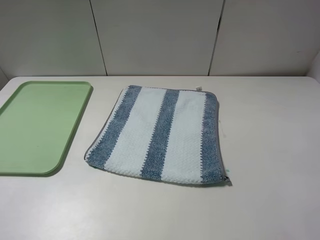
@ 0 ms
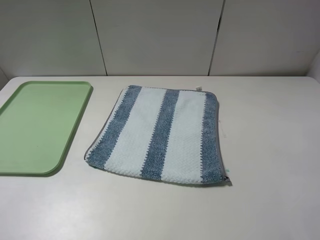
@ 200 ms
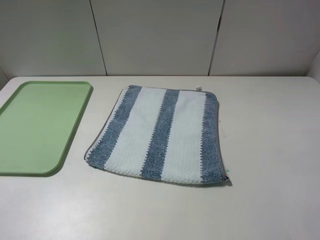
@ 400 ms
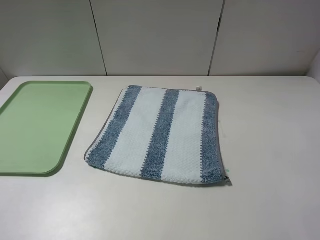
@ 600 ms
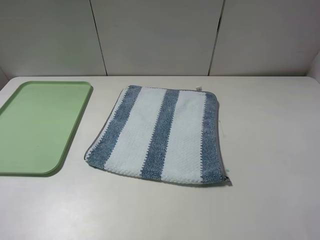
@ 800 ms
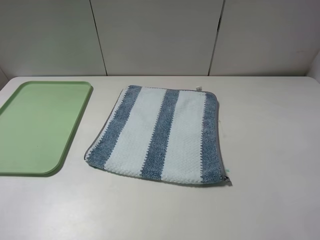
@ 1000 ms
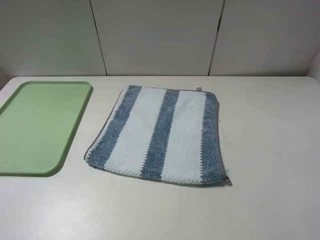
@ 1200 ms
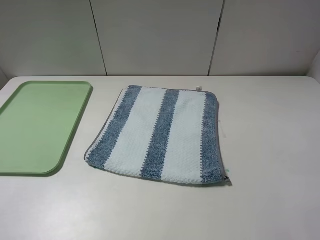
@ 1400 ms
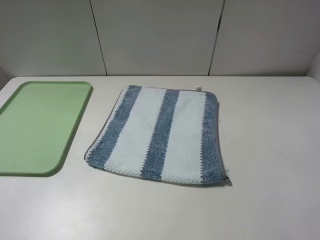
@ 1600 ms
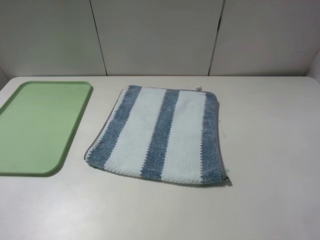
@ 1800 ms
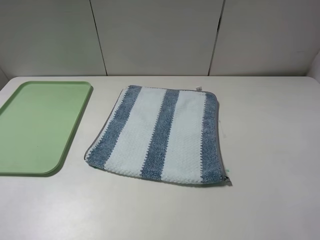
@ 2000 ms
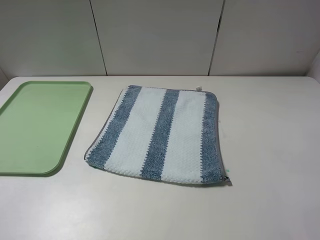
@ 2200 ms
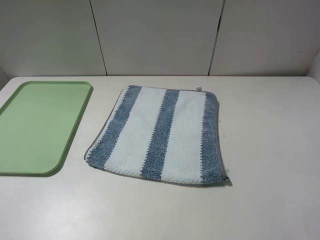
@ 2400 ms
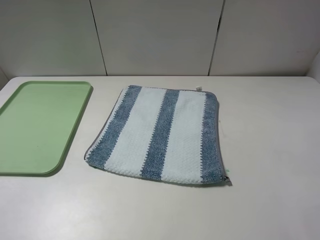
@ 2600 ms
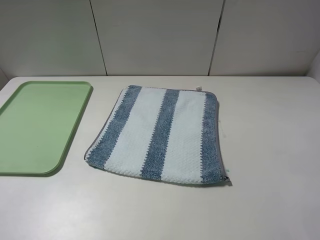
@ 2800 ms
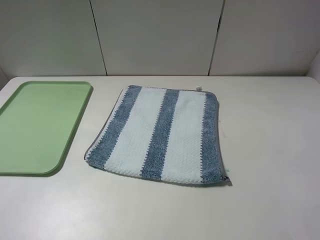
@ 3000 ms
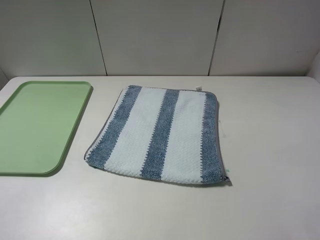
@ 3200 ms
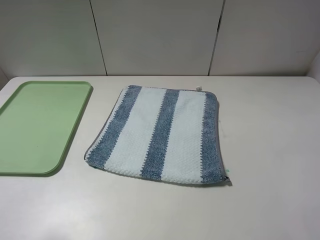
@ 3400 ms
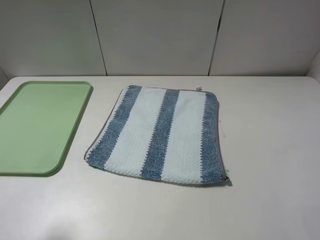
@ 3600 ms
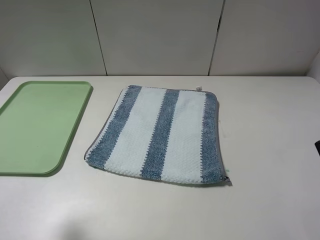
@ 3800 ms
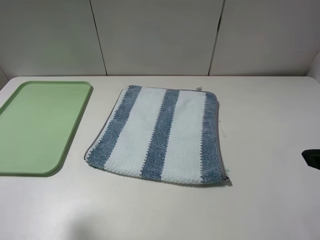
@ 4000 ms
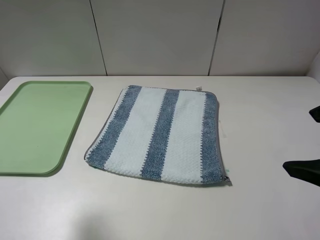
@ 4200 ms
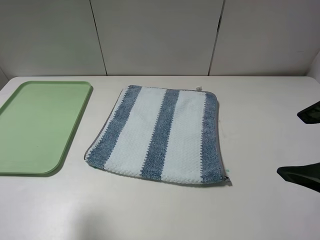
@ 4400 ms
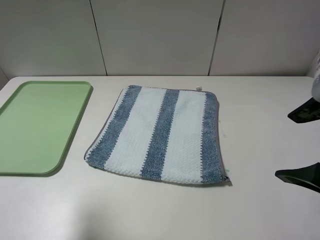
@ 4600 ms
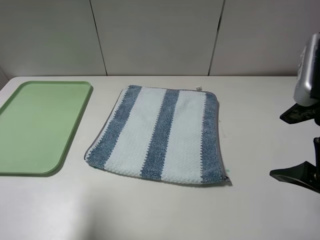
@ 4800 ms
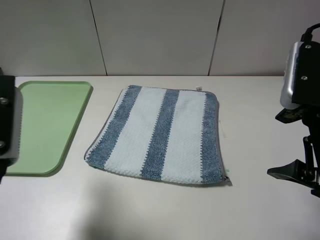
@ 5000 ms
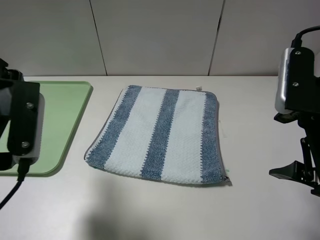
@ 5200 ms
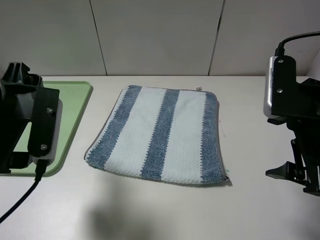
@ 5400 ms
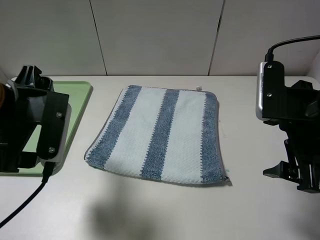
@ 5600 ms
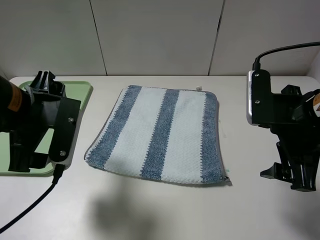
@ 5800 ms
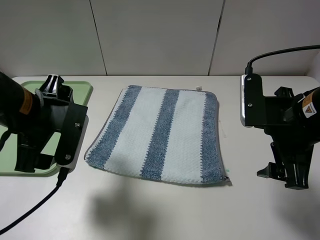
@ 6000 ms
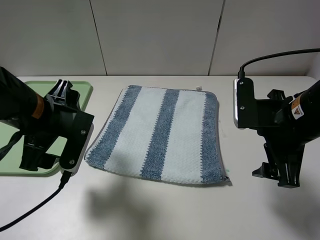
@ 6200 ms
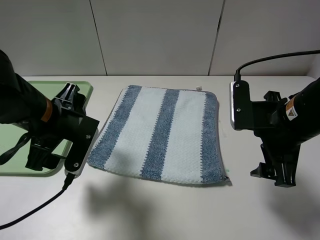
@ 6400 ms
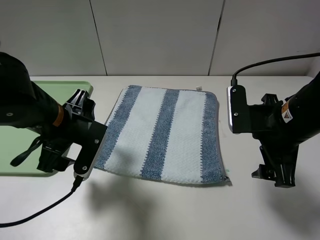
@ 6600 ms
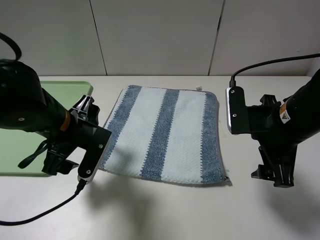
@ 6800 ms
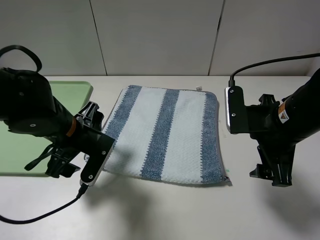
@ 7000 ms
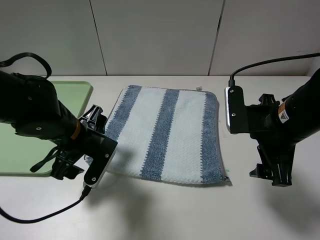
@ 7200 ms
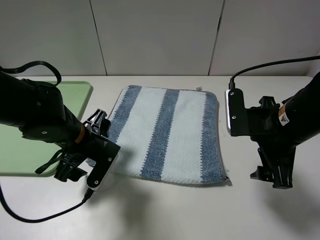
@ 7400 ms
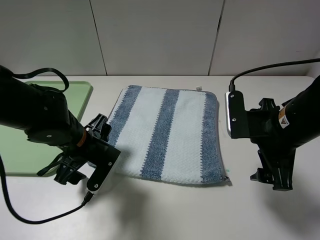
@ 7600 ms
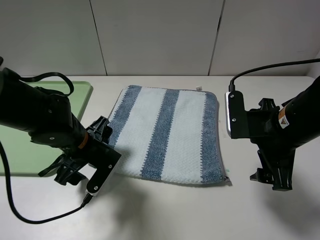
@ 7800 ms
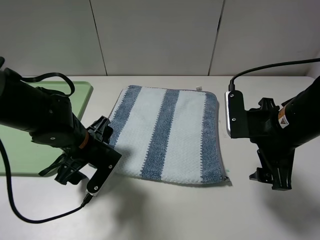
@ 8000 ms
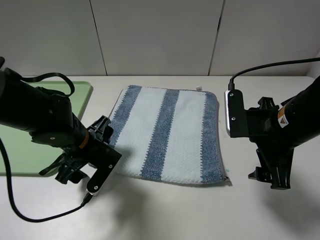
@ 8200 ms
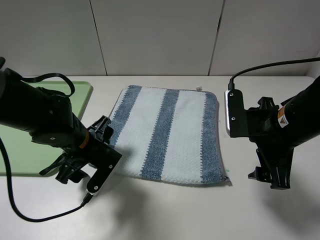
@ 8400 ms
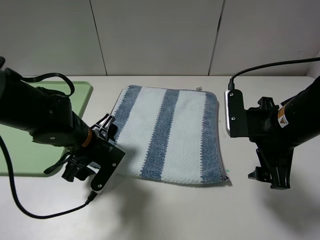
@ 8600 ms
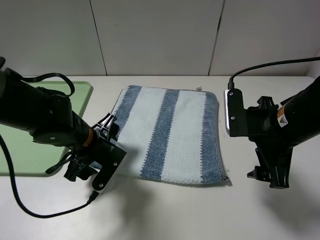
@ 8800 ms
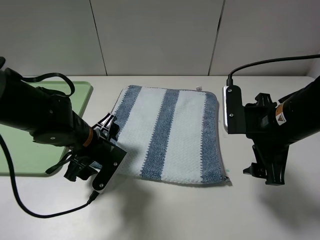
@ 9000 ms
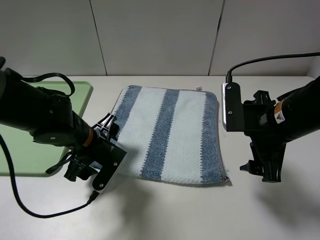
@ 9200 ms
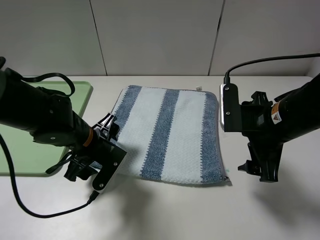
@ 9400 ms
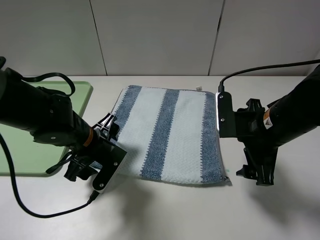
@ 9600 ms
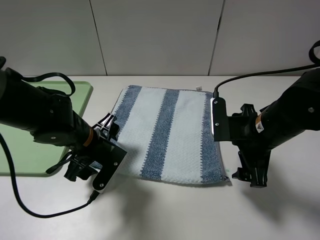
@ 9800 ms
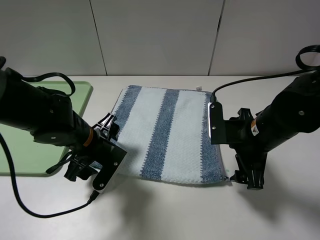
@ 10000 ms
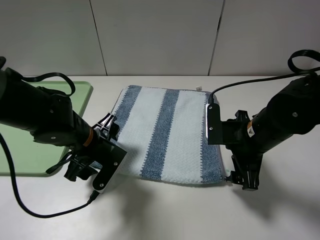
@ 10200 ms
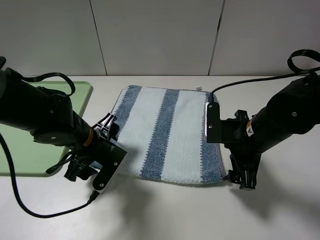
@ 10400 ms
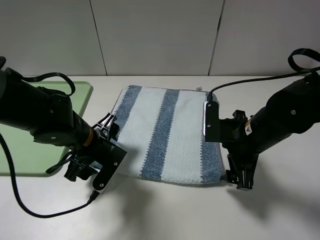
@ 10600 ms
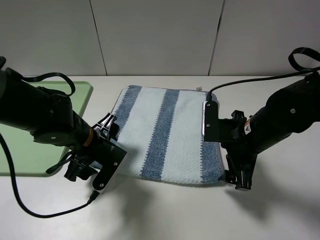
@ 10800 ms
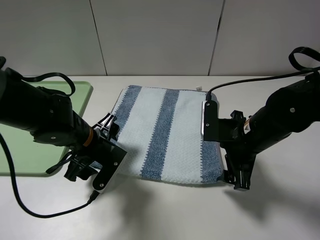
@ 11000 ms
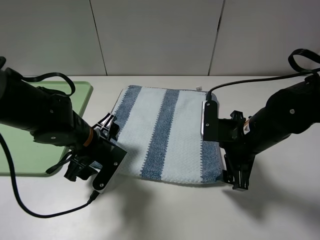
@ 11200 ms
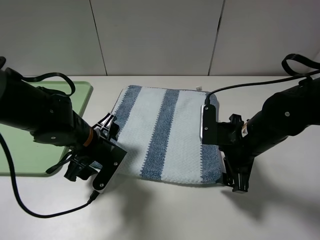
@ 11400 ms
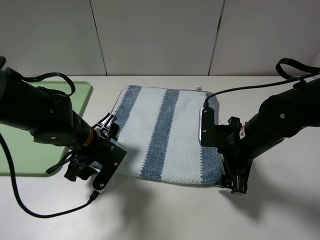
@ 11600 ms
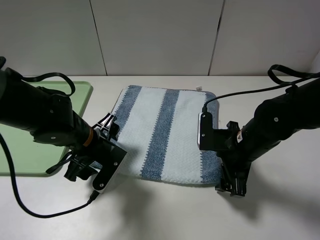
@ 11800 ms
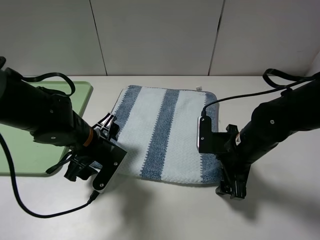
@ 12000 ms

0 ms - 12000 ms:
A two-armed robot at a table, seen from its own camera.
0 ms - 3000 ms: The two grippers keep their place.
3000 ms - 4400 ms: The left gripper heads forward, covering approximately 10 cm; the right gripper is displaced forward and to the left by some 10 cm.
4400 ms - 6000 ms: The right gripper shifts about 10 cm forward and downward. Meanwhile the left gripper is displaced forward, downward and to the right by approximately 15 cm.
6000 ms - 7600 ms: The left gripper travels downward by approximately 10 cm.
7600 ms - 9000 ms: The grippers stay close to where they were, moving slightly.
9000 ms - 10400 ms: The right gripper travels downward by approximately 5 cm.
10400 ms - 12000 ms: The grippers stay close to where they were, moving slightly.

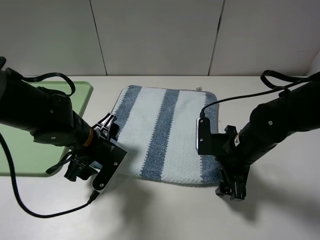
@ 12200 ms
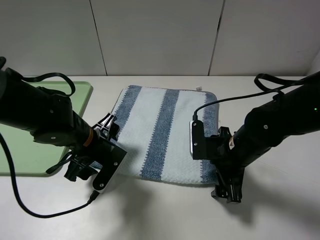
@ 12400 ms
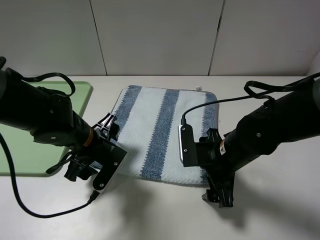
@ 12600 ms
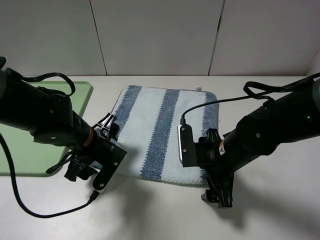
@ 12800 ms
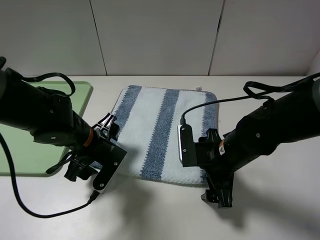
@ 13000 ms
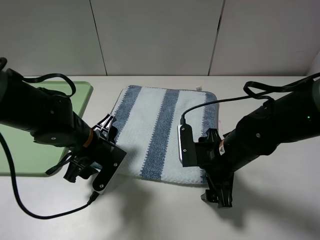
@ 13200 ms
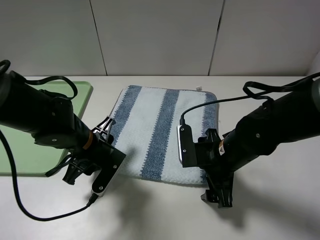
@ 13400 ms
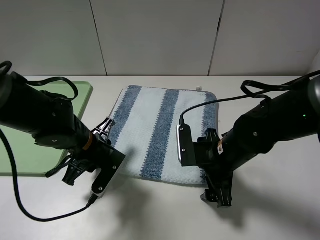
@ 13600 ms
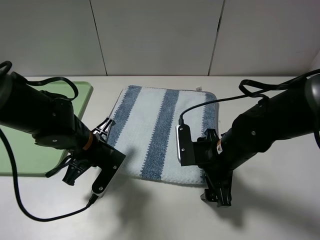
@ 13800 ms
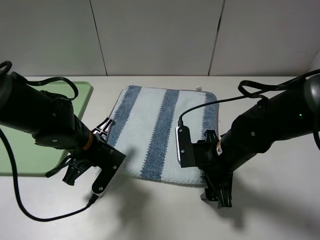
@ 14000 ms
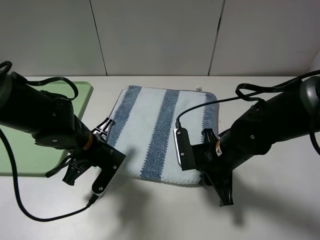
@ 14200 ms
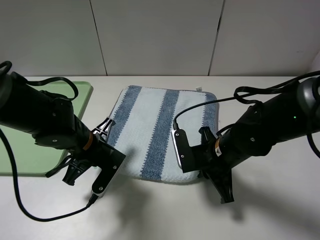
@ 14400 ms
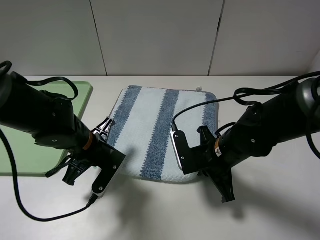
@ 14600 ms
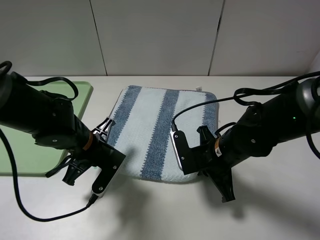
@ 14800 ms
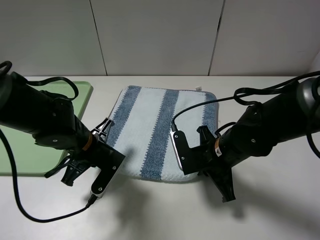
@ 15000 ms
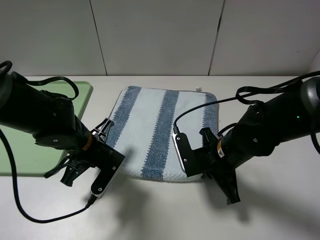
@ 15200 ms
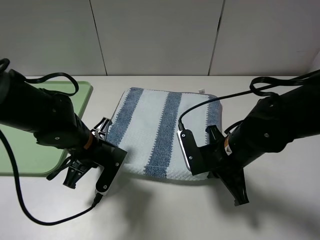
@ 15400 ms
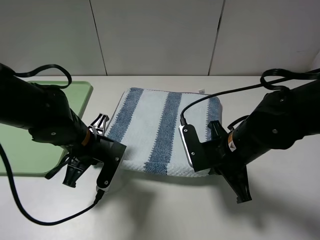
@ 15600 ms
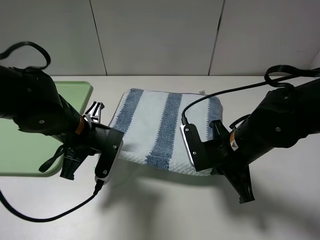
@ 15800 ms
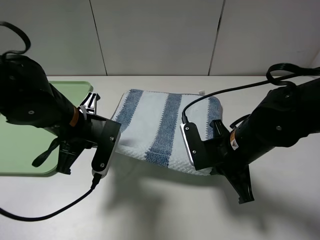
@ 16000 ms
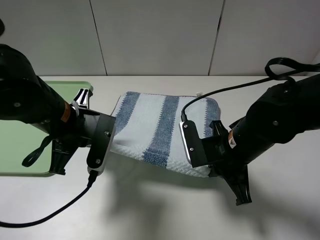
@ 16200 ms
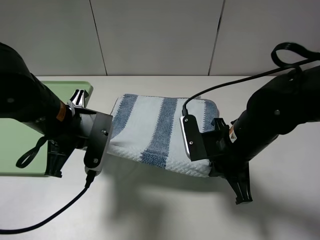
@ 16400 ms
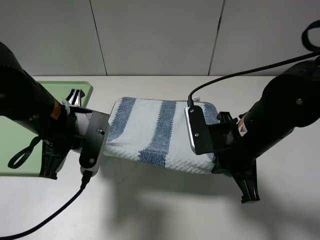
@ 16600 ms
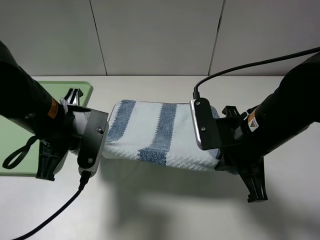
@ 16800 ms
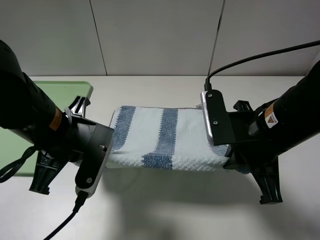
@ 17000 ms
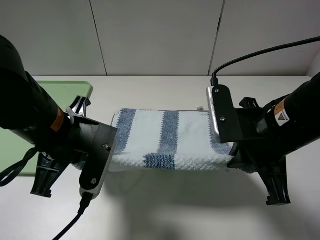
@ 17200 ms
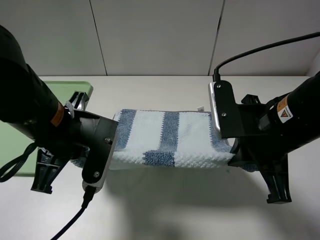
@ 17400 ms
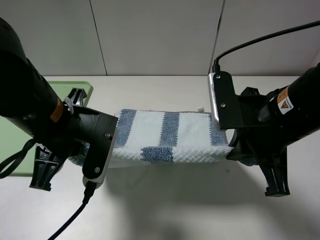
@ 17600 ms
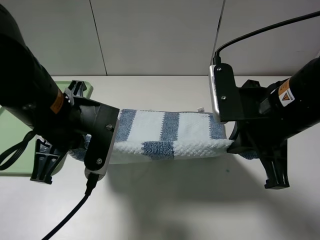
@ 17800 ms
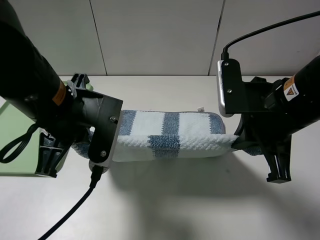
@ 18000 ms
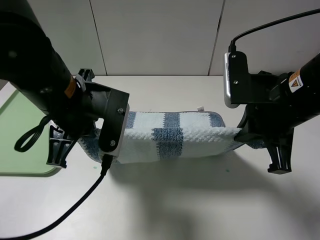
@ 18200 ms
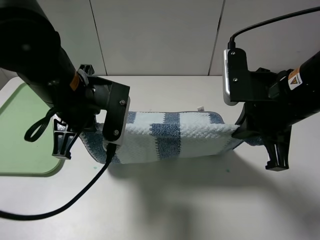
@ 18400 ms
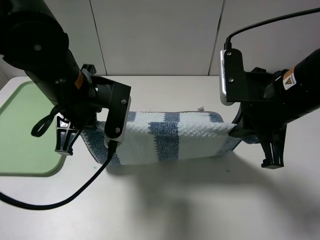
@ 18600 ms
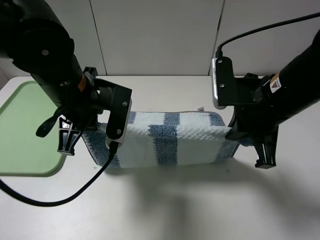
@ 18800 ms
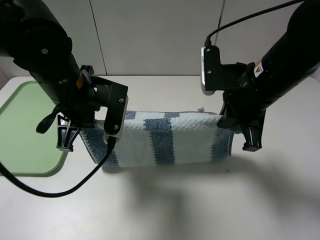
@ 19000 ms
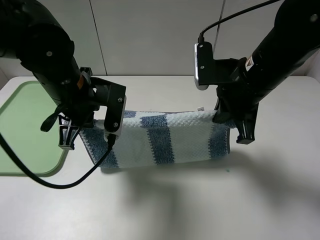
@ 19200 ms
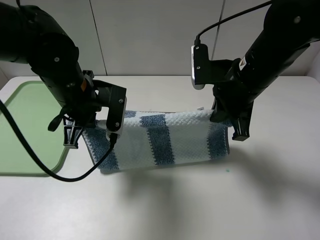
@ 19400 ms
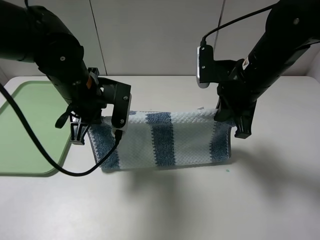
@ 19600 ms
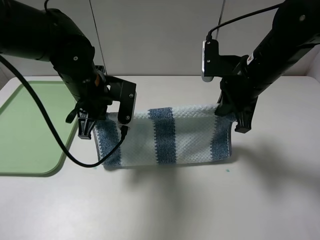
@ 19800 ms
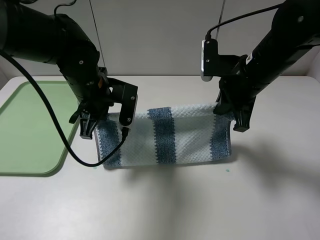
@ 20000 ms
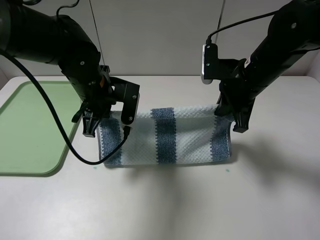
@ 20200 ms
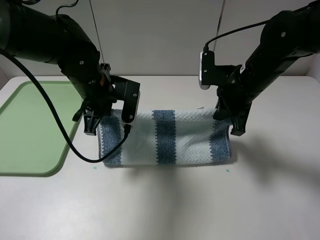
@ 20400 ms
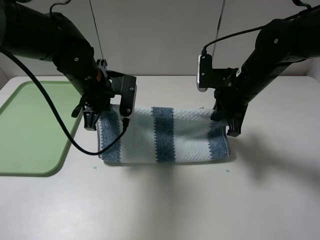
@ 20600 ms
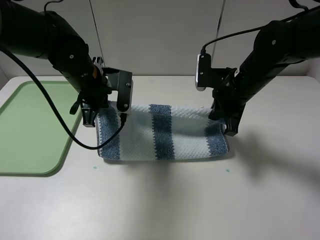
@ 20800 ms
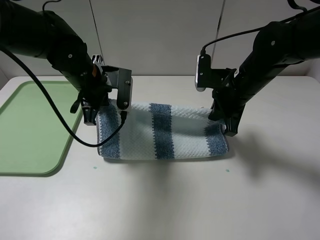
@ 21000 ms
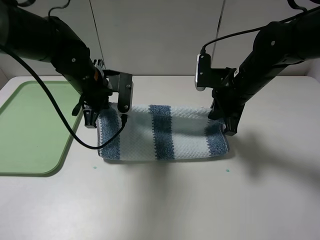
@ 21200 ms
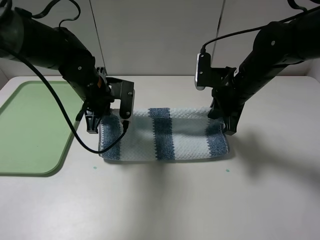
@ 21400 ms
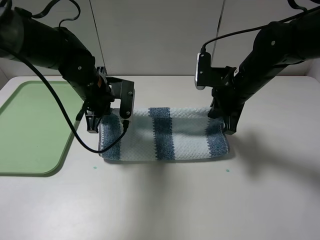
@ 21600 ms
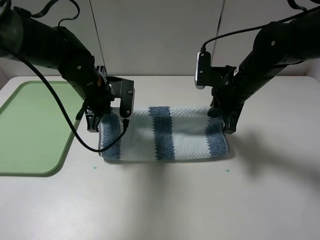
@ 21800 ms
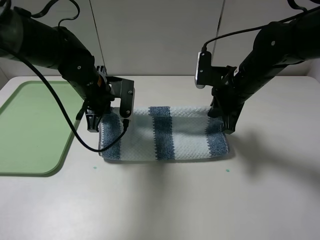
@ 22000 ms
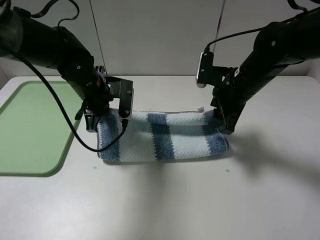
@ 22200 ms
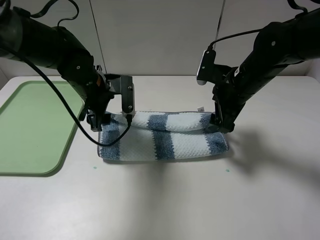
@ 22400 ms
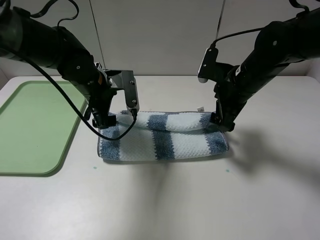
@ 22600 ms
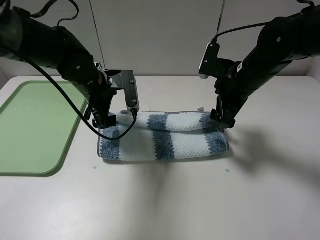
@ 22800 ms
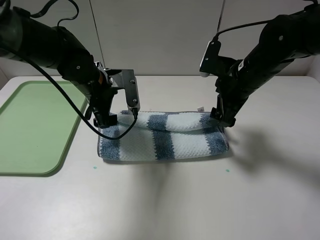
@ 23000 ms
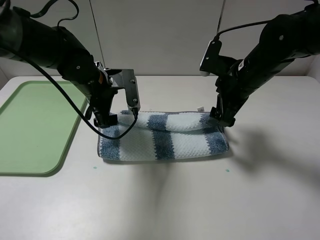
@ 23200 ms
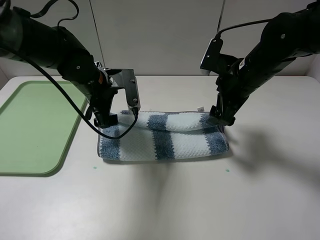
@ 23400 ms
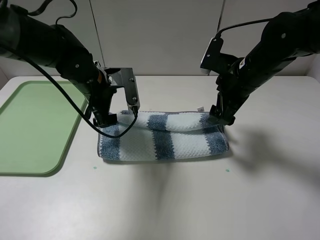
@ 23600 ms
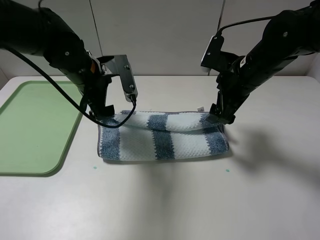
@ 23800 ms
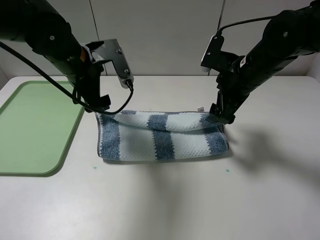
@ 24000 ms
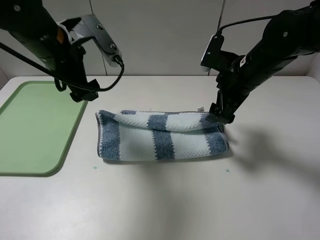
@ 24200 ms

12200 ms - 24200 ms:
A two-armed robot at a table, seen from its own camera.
Step, 14000 ms - 14800 ms: Grasp the blue white towel with the right gripper.
Step, 15000 ms - 23200 ms: Fold the blue white towel upwards with the left gripper.
12200 ms - 13800 ms: The left gripper closes.
13800 ms - 15200 ms: The right gripper closes its fingers.
15200 ms - 16600 ms: Both grippers move upward, some 10 cm.
16600 ms - 18200 ms: The left gripper moves about 5 cm; the right gripper is displaced upward by roughly 5 cm.
18200 ms - 19800 ms: The right gripper travels forward by approximately 10 cm. The left gripper heads forward and downward, covering approximately 10 cm.
19800 ms - 21200 ms: The right gripper ends up some 5 cm from where it was.
21200 ms - 22600 ms: The right gripper opens, while the left gripper opens its fingers.
22600 ms - 24200 ms: The left gripper is displaced upward by approximately 10 cm.
